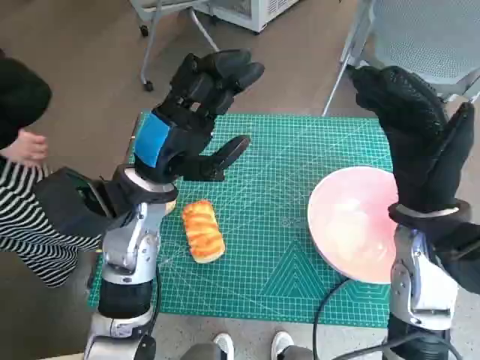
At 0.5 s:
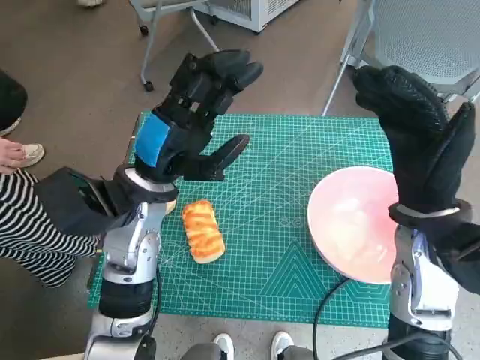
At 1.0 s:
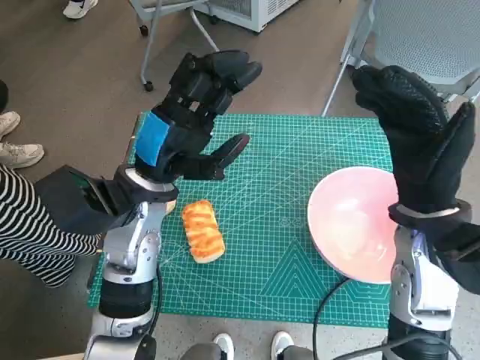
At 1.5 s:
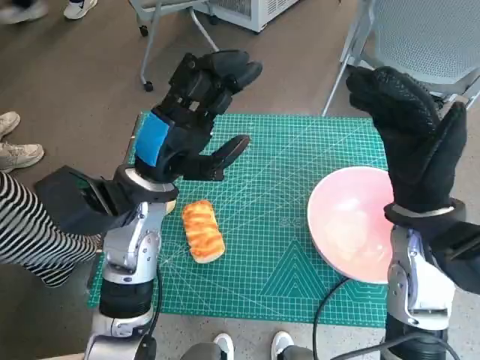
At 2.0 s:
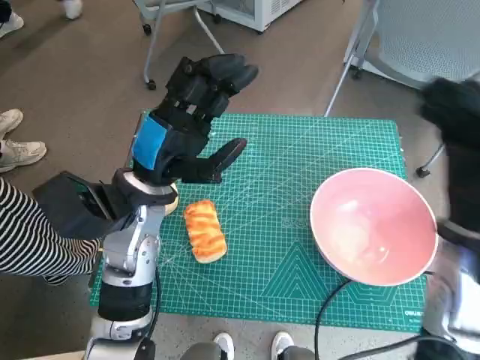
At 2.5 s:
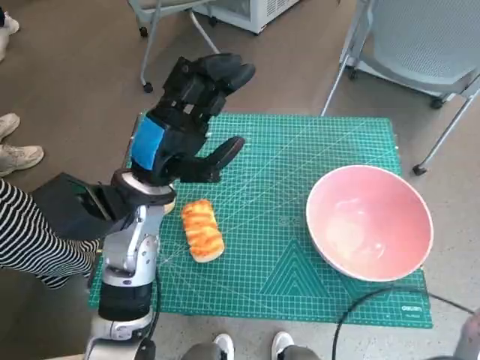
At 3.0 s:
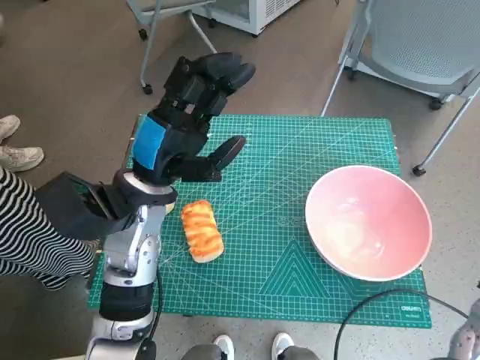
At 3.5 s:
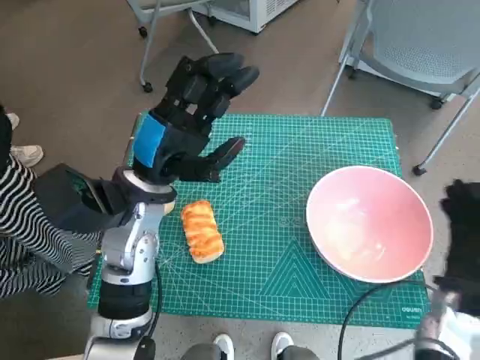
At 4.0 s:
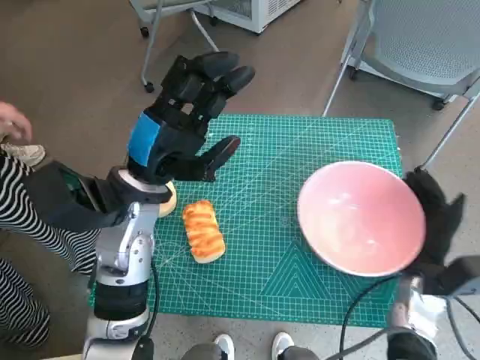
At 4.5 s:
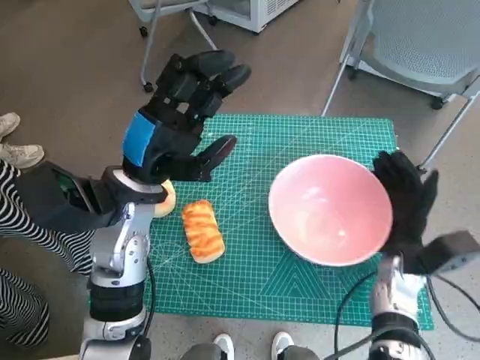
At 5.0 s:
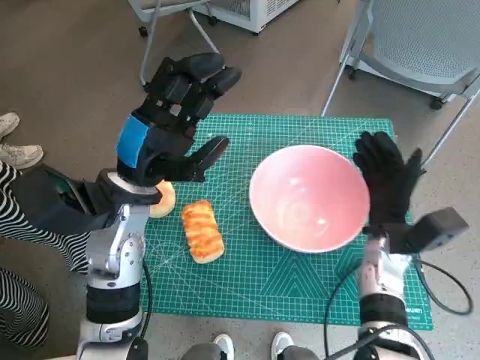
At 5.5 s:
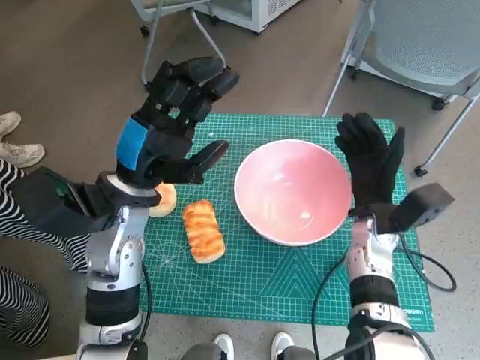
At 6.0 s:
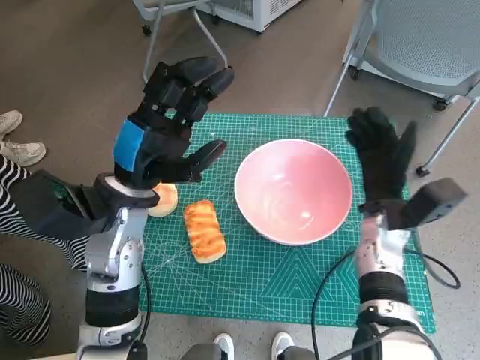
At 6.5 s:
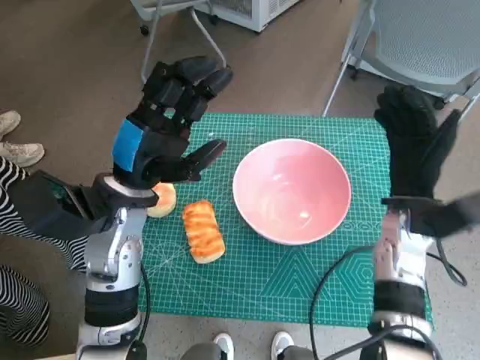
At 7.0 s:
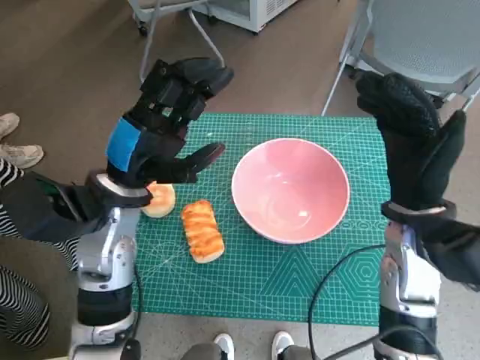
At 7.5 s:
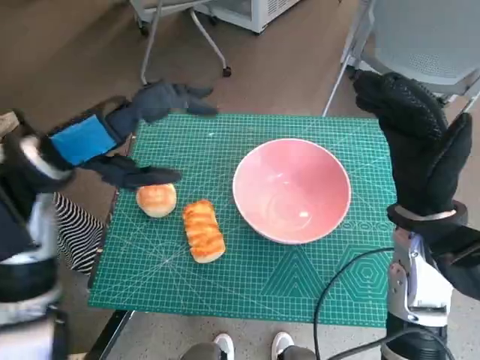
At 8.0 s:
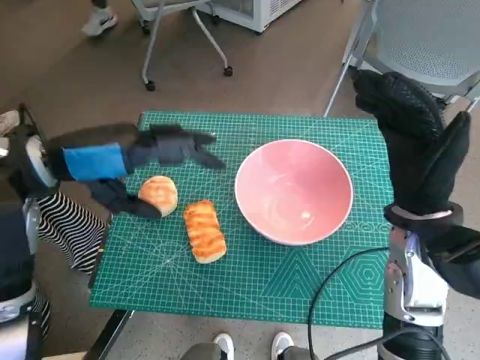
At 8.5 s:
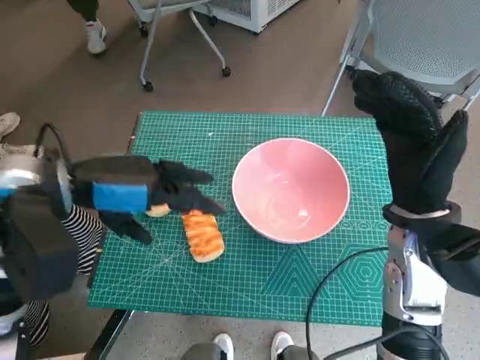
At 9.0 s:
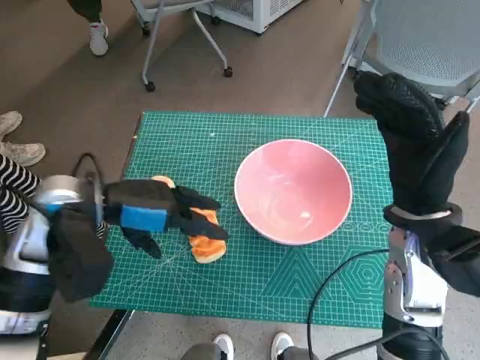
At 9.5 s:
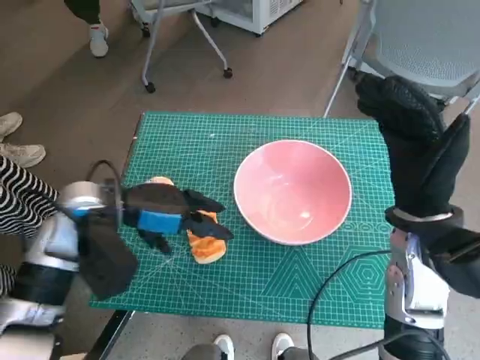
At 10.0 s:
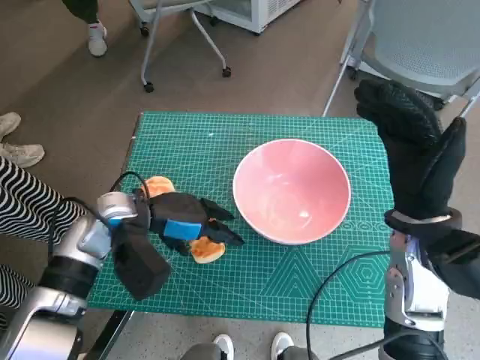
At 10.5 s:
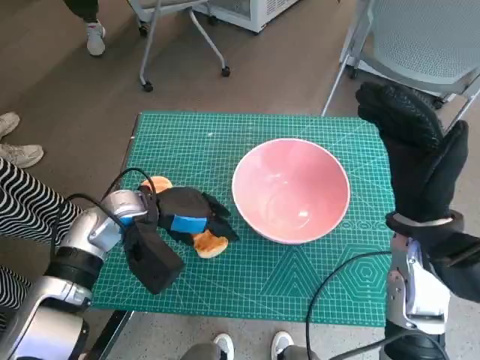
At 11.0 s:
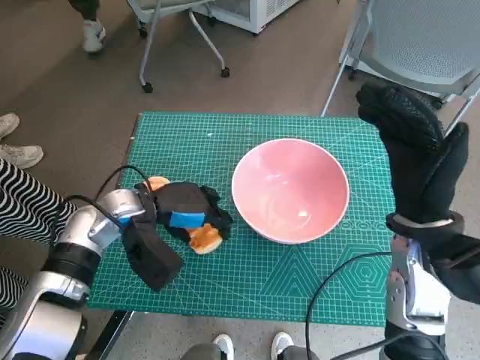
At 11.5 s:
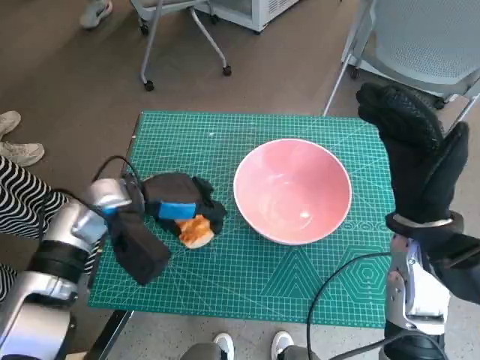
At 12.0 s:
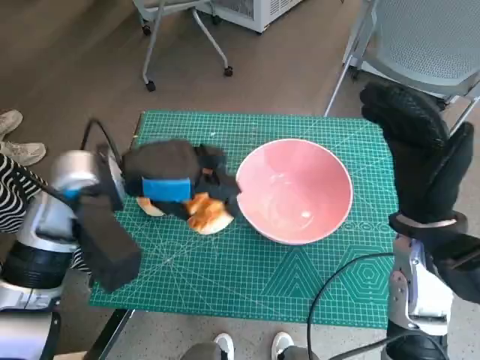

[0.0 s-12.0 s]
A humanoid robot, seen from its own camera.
Task of the whole recording: Push the bowl into the center of the table and put the bread into the bowl.
Step, 0.0 to 5.5 s: Move the pink bowl to the center of table with right hand.
Step, 6.5 to 11.0 s: Grasp the long bread with left hand.
2.0 to 4.0 s: The right hand is displaced downward by roughly 15 cm.
4.0 to 6.0 s: The right hand goes some 10 cm forward, to the left and upward.
6.0 to 8.0 s: The left hand shifts roughly 10 cm upward and to the left, while the right hand heads upward and backward, covering about 10 cm.
8.0 to 10.0 s: The left hand travels downward by about 15 cm.
10.0 to 12.0 s: The left hand is displaced upward by about 10 cm.

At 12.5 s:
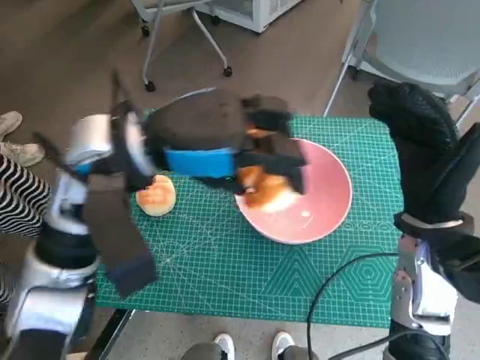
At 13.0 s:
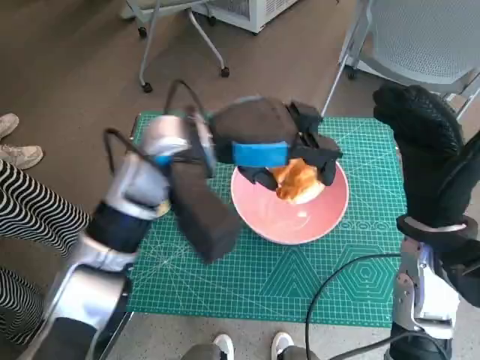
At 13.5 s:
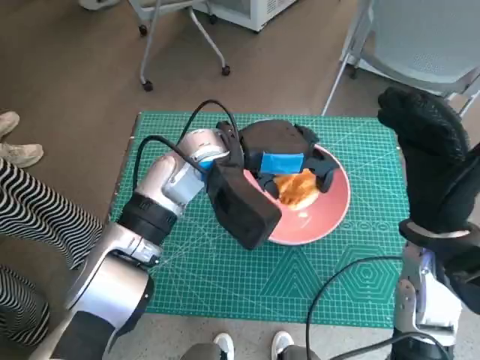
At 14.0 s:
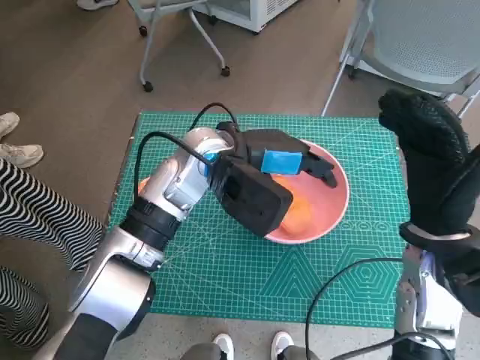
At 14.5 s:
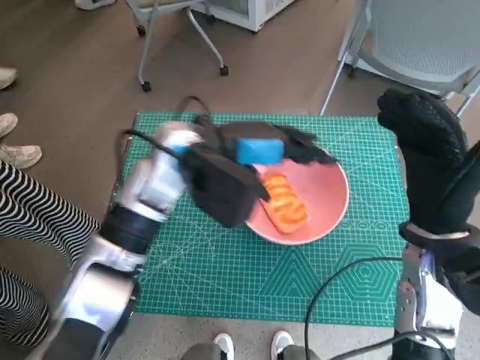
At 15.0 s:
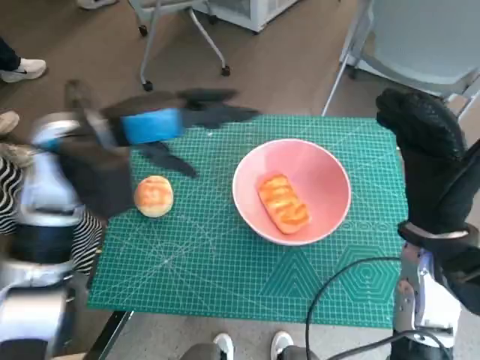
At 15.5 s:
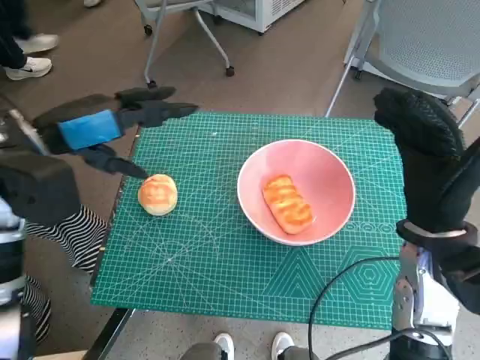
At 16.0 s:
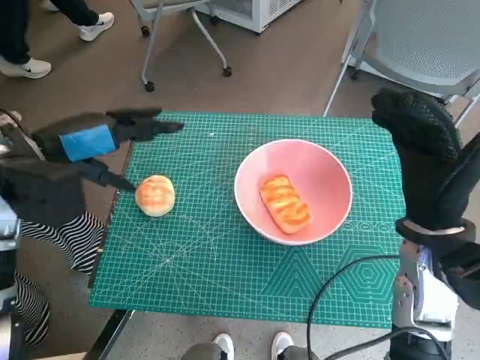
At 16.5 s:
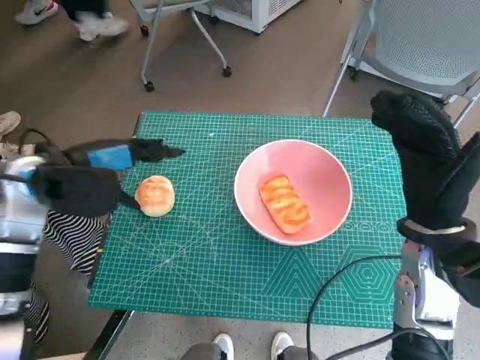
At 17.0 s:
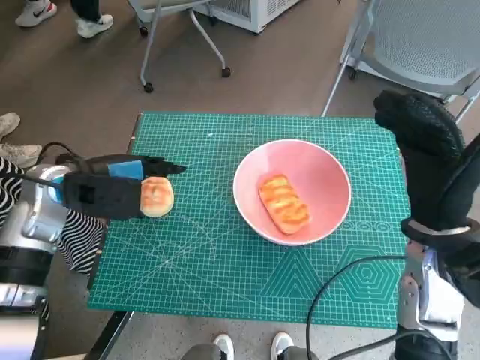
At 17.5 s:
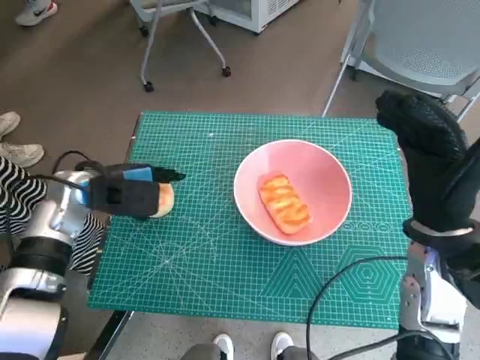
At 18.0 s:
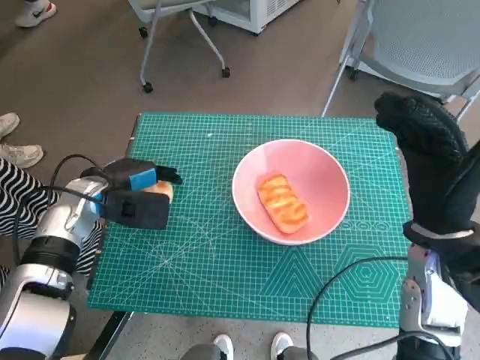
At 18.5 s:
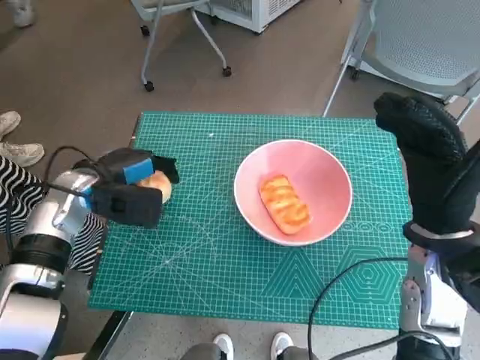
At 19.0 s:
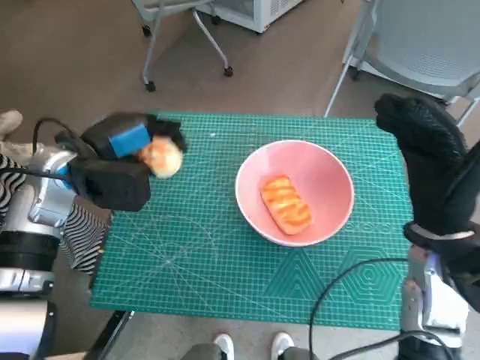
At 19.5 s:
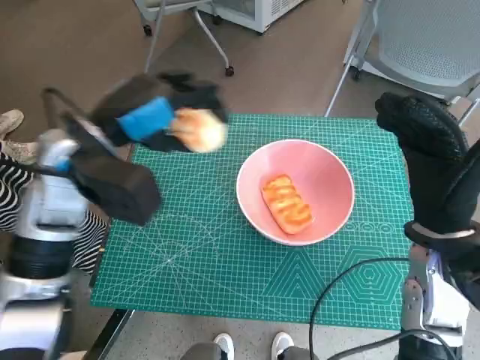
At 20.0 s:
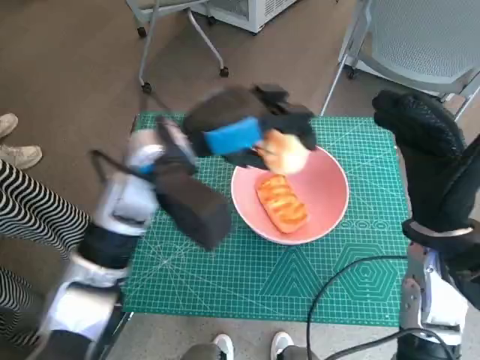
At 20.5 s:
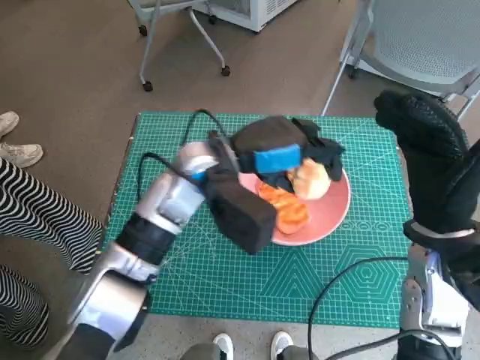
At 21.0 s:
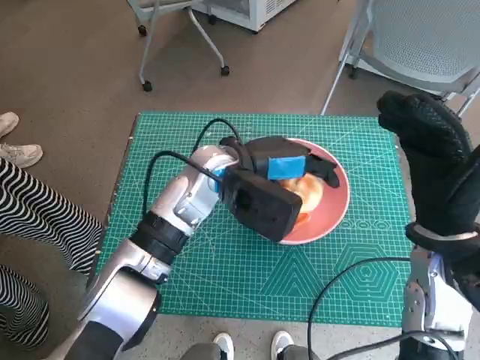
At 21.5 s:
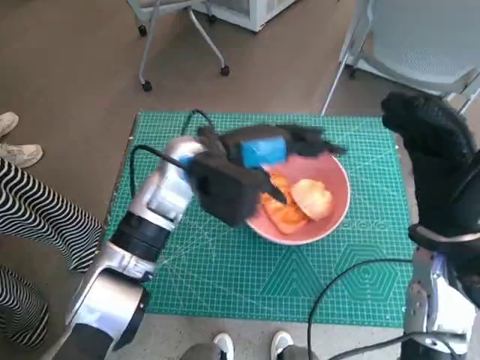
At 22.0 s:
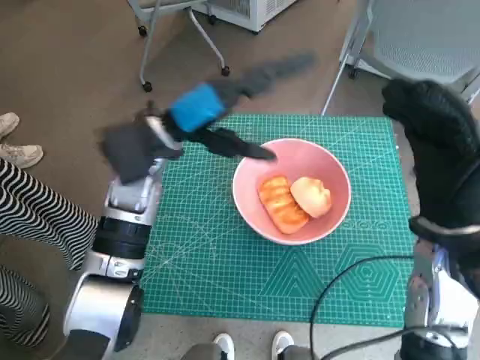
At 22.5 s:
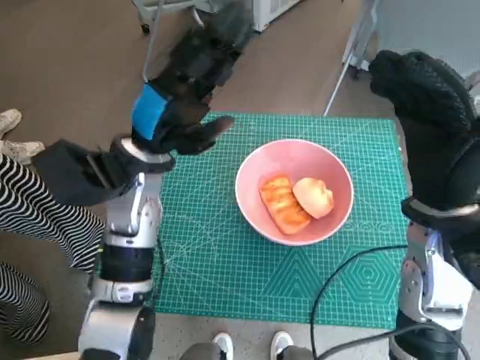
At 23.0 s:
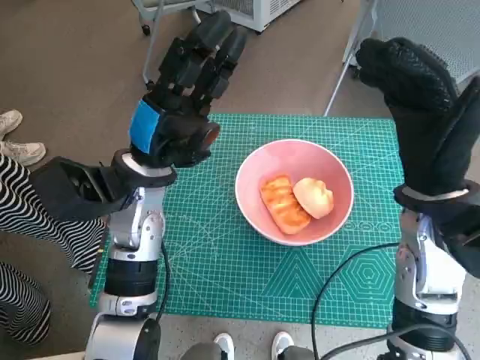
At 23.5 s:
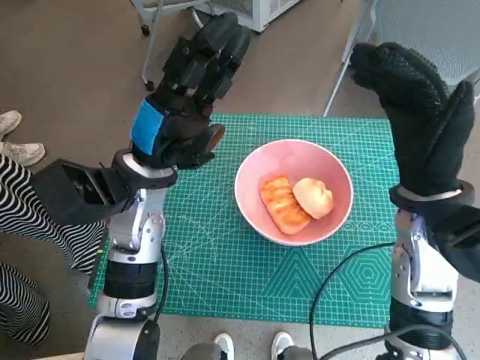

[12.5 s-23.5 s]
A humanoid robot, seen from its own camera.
Task of the whole recording: Push the bowl into the center of the table and put the bread into the bowl.
Step, 12.5 to 14.0 s: Place the long bread in pink bowl with left hand.
Step, 14.5 to 17.5 s: Grasp the round bread with left hand.
Step, 18.5 to 21.0 s: Place the round bread in pink bowl with left hand.
12.5 to 14.5 s: The left hand heads downward, forward and to the right, covering about 10 cm.
14.5 to 16.0 s: The left hand heads to the left, covering some 20 cm.
16.0 to 18.0 s: The left hand shifts some 15 cm downward.
18.0 to 20.0 s: The left hand travels to the right and upward by about 20 cm.
20.0 to 21.5 s: The left hand shifts by some 5 cm.
21.5 to 23.5 s: The left hand travels to the left by about 5 cm. Meanwhile the right hand moves approximately 5 cm.

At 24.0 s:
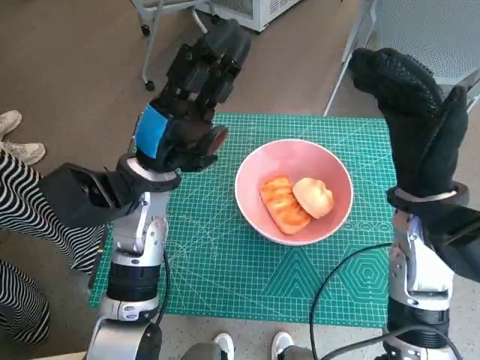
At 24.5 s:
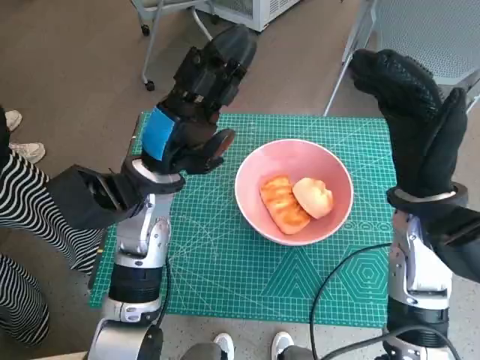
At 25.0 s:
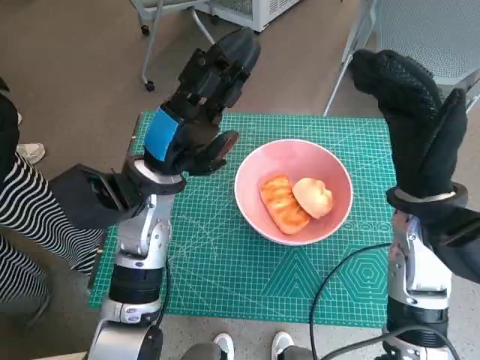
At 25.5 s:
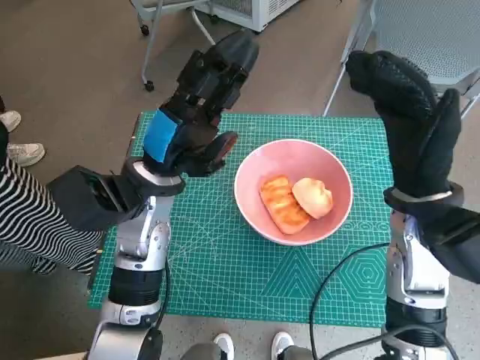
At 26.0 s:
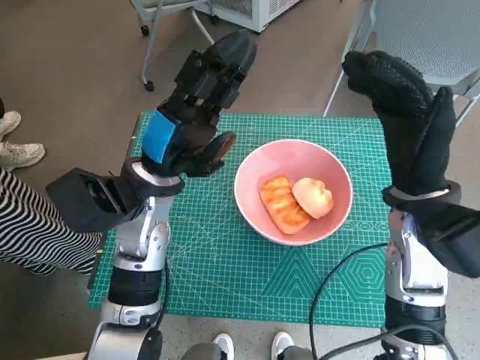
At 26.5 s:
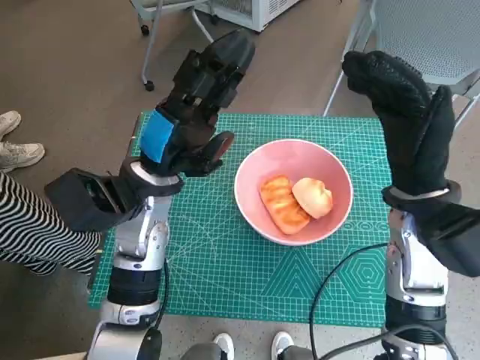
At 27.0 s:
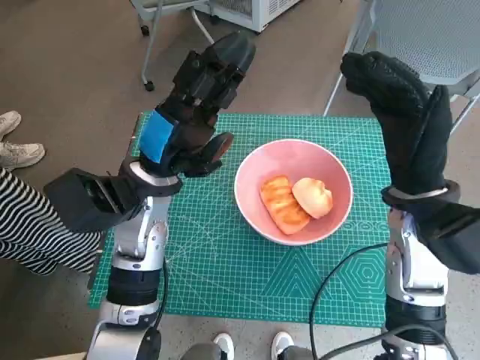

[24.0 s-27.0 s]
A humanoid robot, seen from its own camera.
Task of the whole recording: Push the bowl into the center of the table and put the bread into the bowl.
24.0 to 27.0 s: Both hands stay about where they are.
